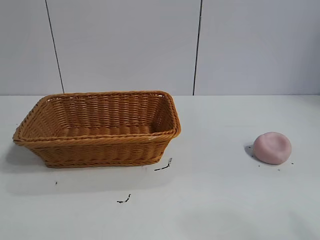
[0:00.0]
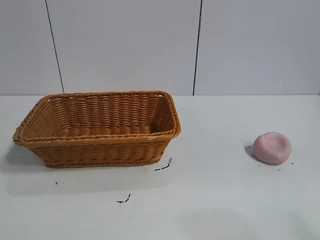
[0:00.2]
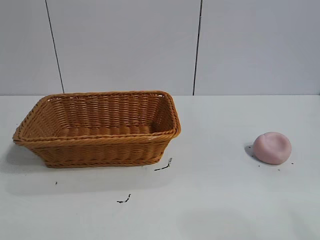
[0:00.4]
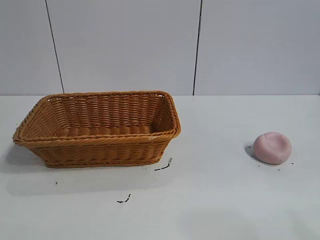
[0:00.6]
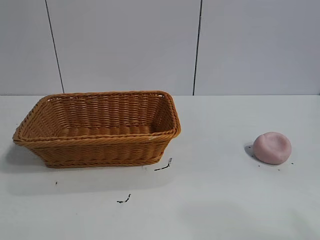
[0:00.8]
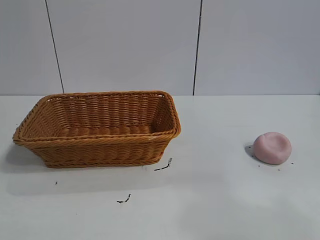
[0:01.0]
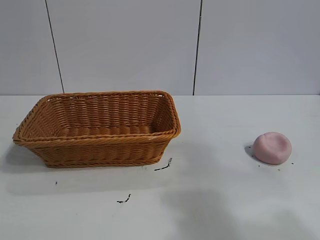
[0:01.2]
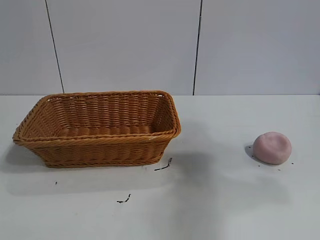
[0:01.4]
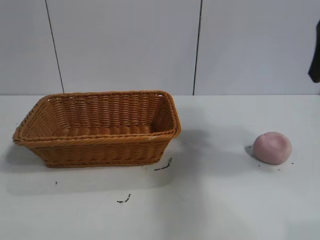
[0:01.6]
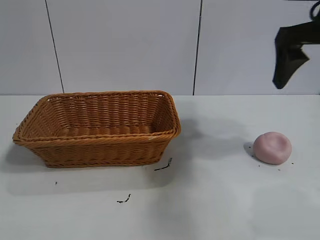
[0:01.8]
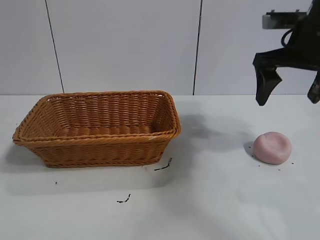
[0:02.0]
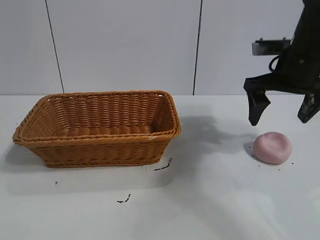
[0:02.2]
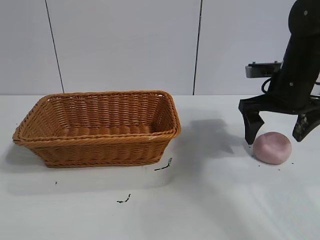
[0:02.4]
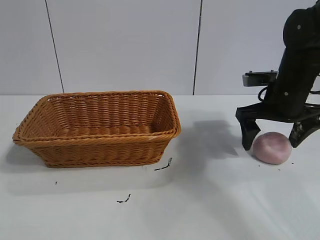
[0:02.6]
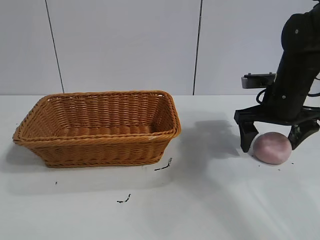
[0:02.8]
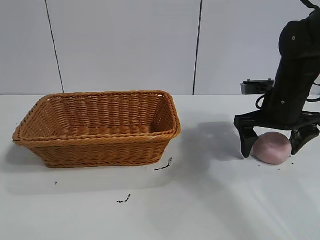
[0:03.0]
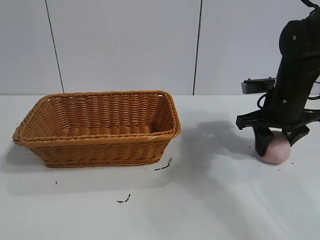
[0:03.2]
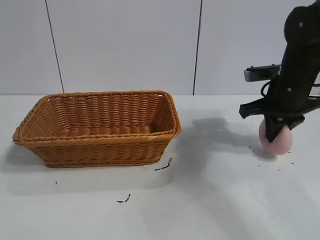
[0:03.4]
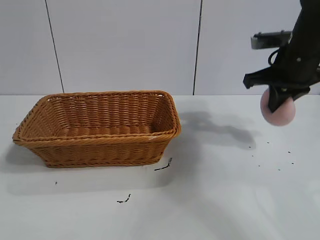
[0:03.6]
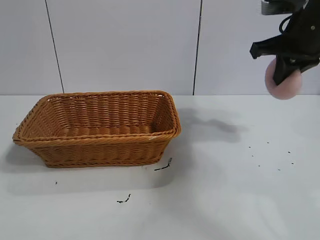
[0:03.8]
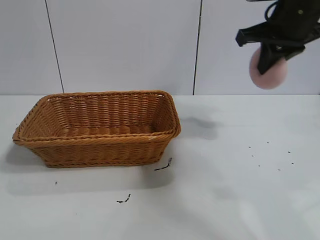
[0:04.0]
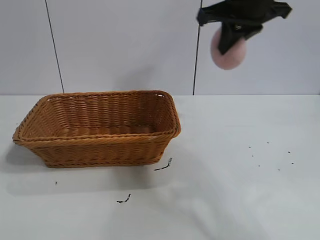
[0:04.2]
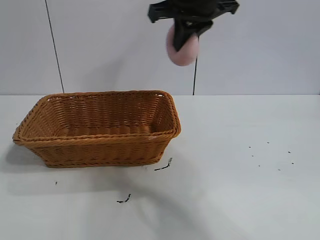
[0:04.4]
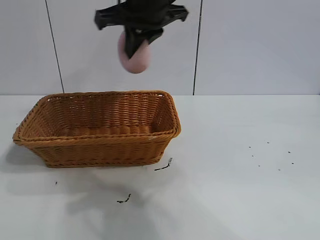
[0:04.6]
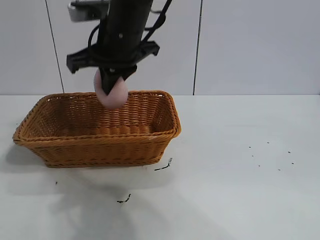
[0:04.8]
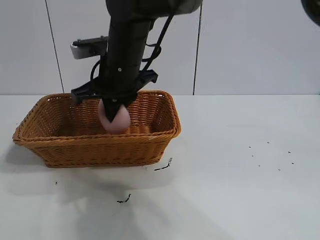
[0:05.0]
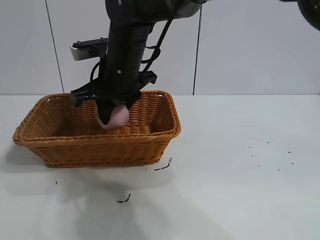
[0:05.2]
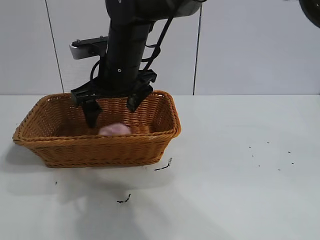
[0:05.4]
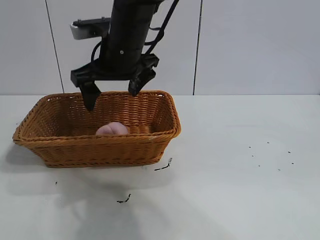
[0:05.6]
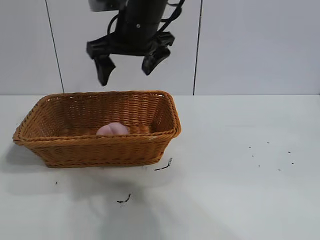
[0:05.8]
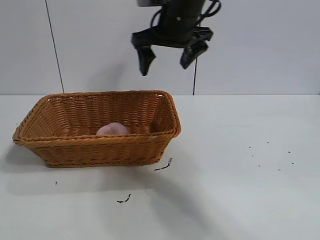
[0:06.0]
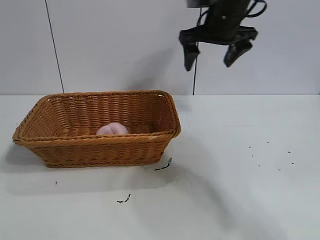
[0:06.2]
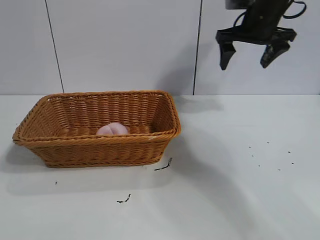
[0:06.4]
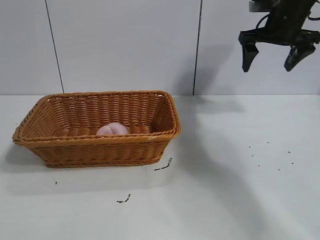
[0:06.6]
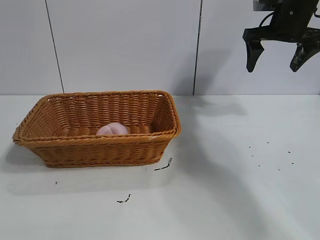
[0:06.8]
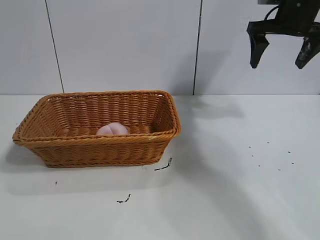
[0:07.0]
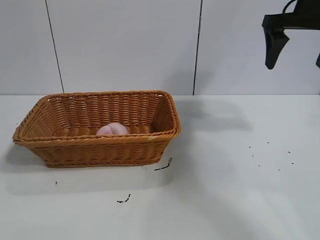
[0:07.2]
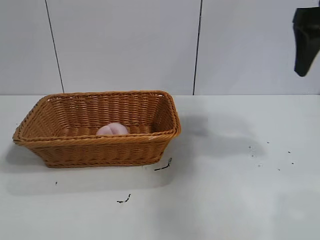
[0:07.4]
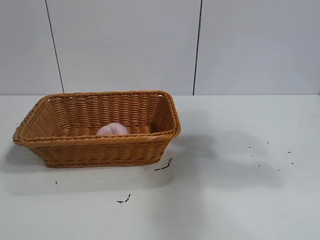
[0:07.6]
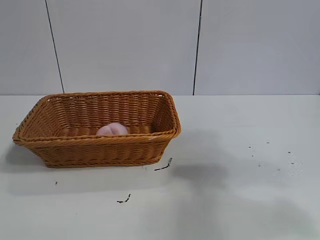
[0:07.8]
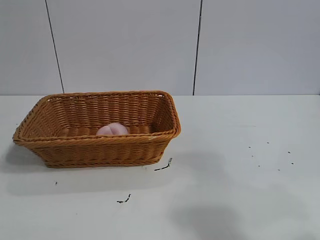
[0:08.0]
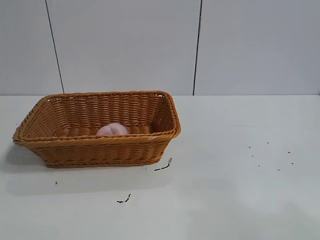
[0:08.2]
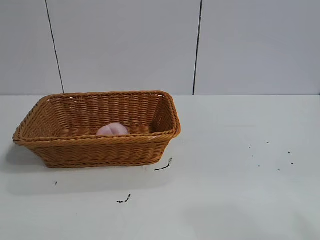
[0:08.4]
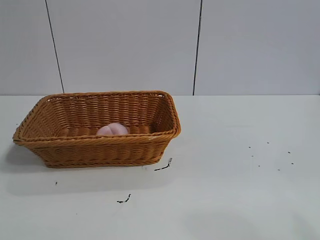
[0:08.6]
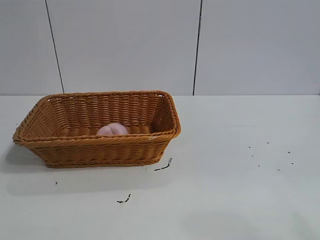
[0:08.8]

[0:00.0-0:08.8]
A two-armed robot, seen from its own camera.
Task of the whole recording: pick up the peach and put it into the basket.
Step, 0:00.8 to 0:03.2: Grasp the peach with right gripper.
Step, 0:03.4 to 0:05.4: Place the peach in the basket with right gripper.

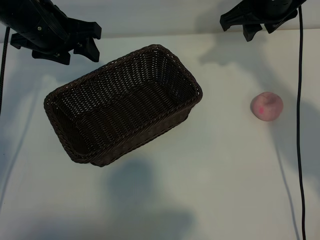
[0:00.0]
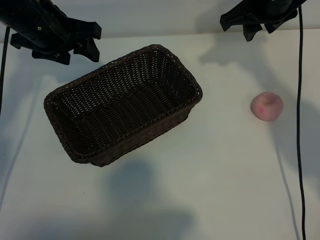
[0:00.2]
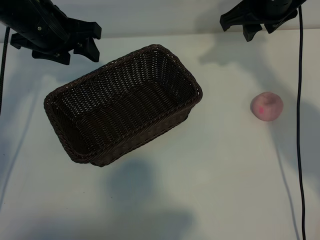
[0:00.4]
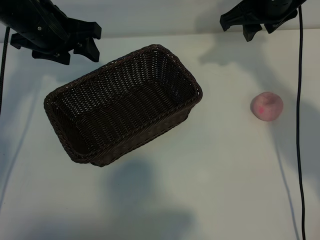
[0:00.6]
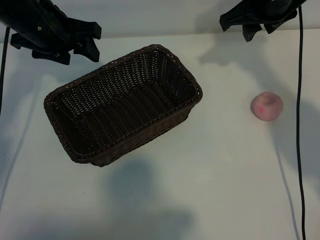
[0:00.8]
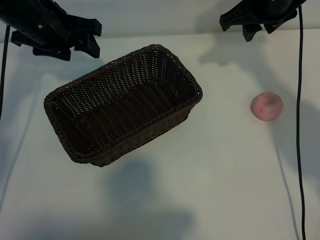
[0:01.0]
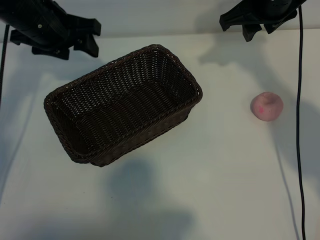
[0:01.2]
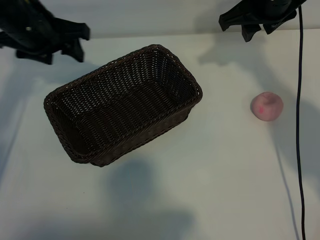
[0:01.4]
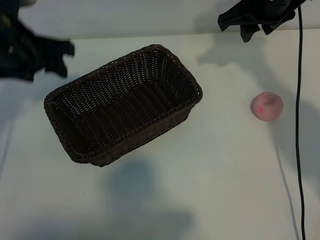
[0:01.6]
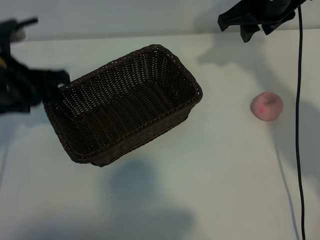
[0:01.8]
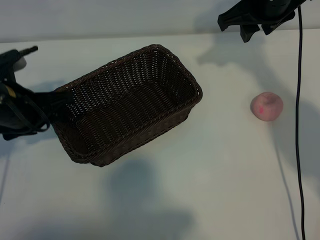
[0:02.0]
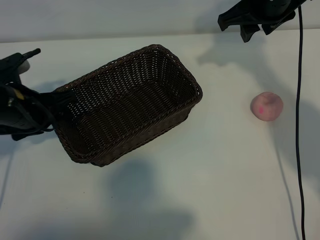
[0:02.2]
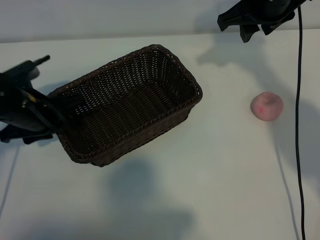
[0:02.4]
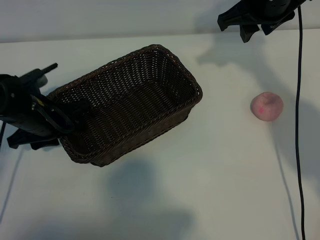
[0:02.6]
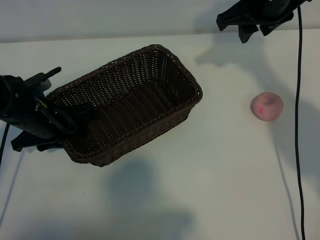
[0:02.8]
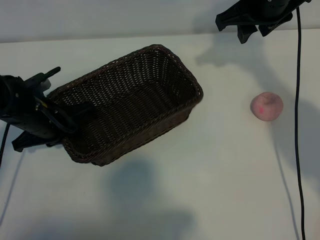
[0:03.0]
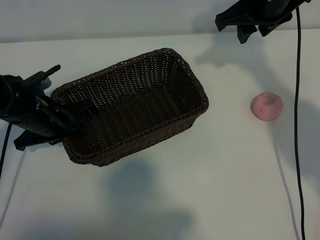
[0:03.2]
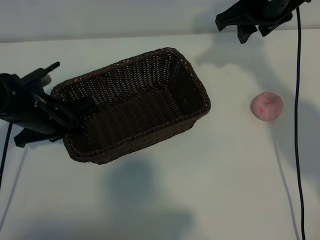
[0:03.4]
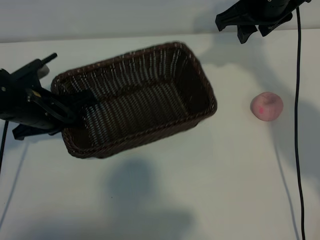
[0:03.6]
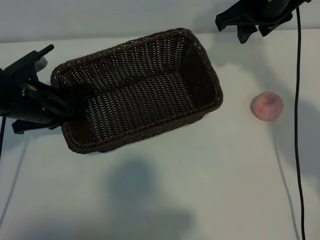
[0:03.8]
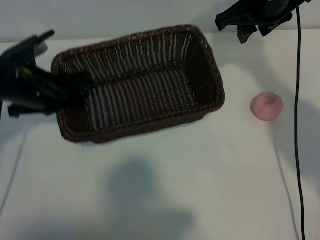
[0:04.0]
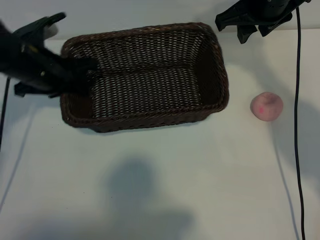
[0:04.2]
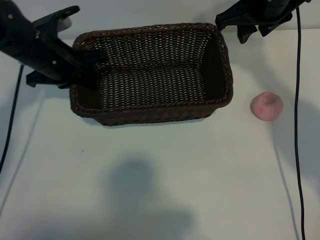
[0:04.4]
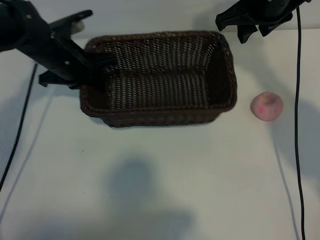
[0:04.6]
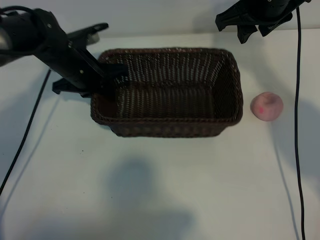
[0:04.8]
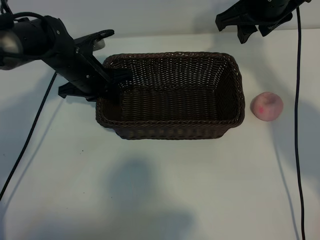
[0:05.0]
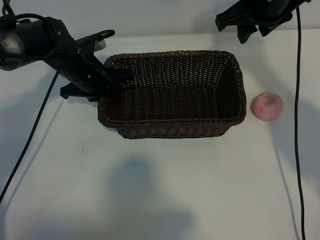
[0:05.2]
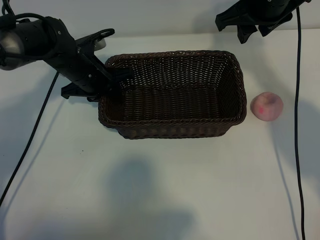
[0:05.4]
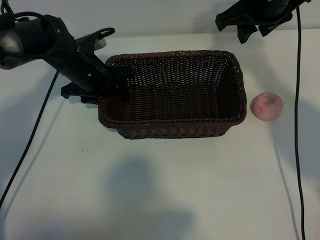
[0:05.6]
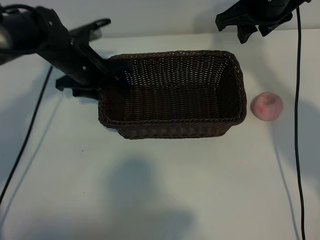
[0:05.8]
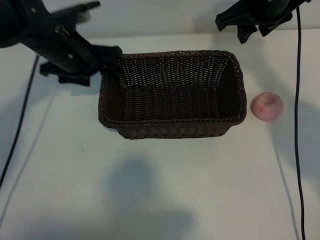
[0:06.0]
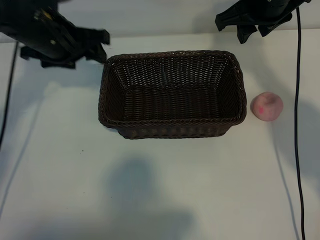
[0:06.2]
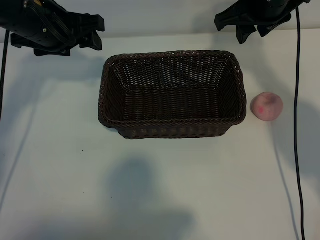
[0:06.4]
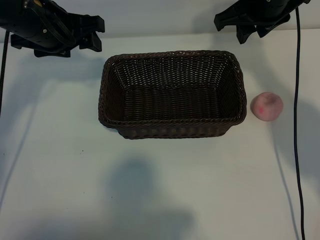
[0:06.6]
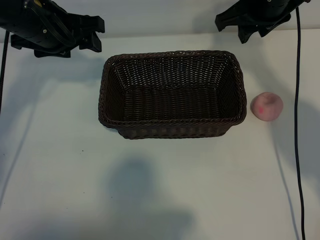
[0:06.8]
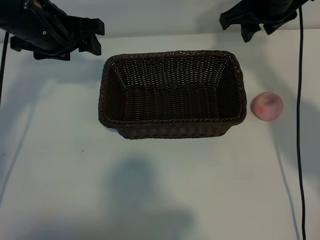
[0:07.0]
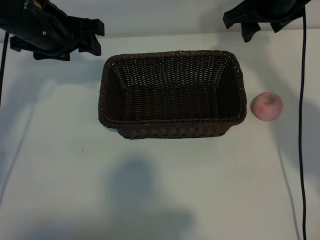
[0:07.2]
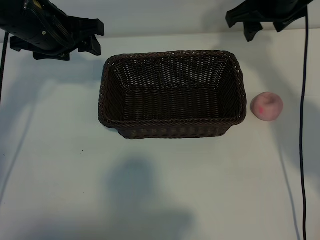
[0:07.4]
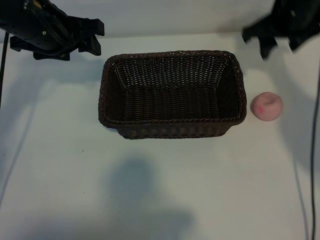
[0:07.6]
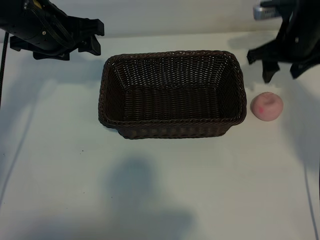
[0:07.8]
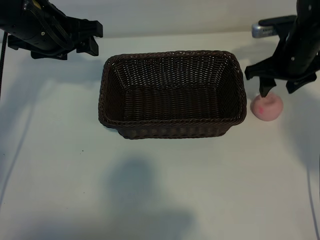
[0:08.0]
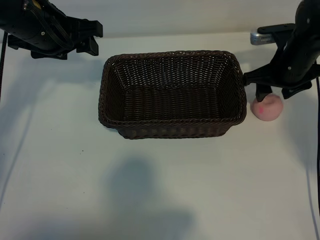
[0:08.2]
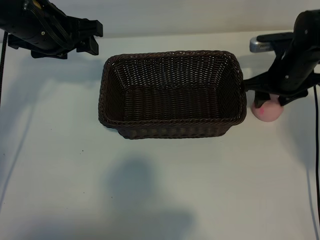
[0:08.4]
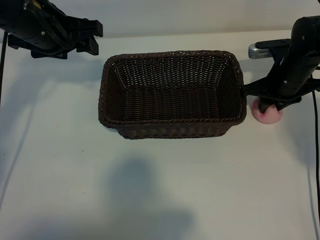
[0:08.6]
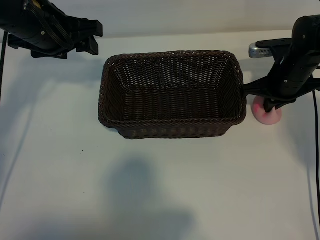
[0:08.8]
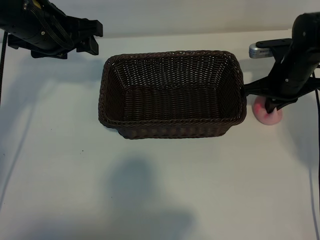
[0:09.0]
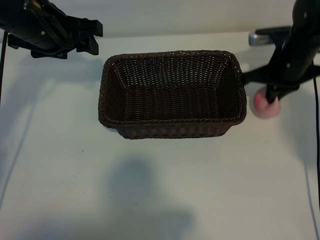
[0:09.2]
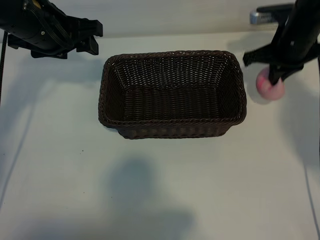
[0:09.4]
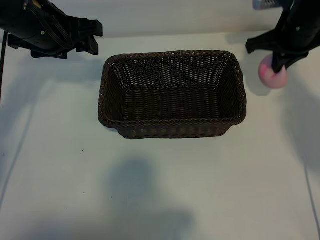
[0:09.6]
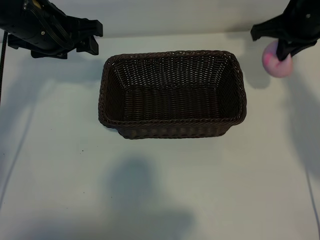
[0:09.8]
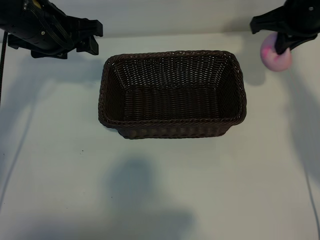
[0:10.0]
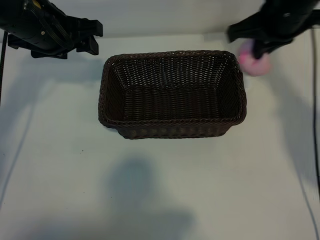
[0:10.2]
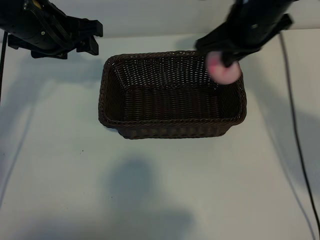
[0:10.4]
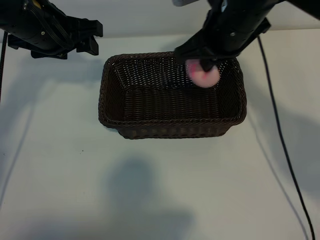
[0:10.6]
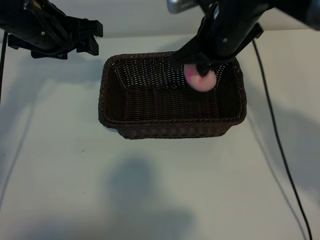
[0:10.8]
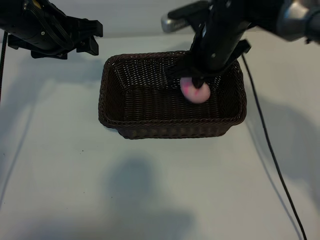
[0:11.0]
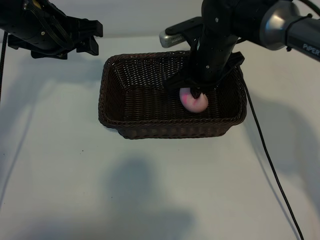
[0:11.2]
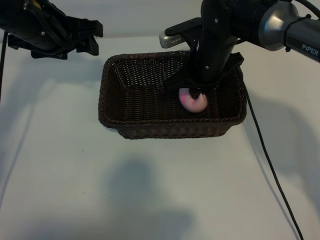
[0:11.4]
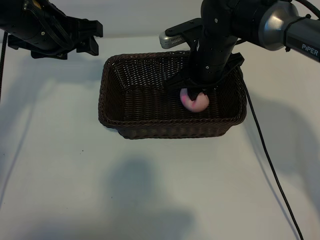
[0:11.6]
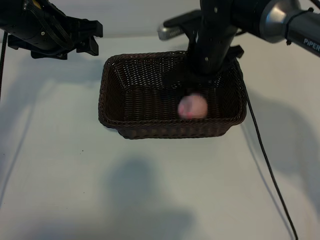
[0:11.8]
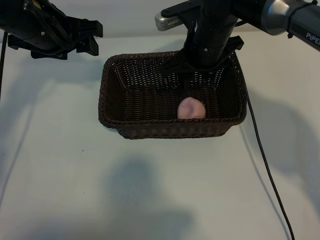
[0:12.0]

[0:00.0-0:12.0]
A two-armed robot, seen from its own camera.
Task of the whole recording: pick up the peach and put it into the basket.
Step, 0:01.0 to 0:03.0: Grasp the basket with left gripper.
Step, 0:03.2 to 0:05.4: Place the basket in the center of view with left gripper.
Step, 0:05.6 to 0:08.8: Grasp the peach with right gripper.
Step, 0:09.0 to 0:11.8: Place the peach in the basket with right gripper.

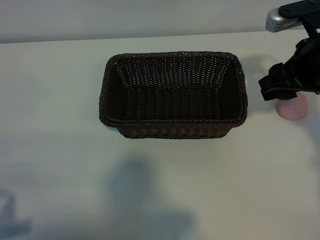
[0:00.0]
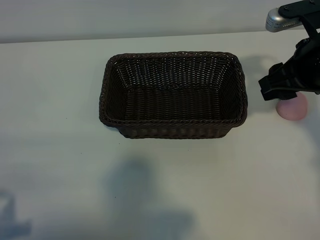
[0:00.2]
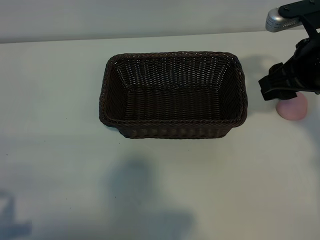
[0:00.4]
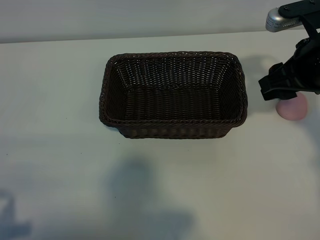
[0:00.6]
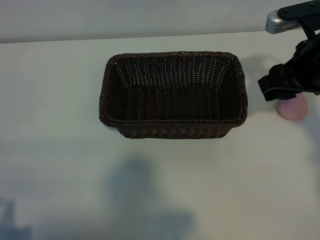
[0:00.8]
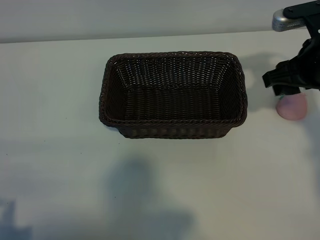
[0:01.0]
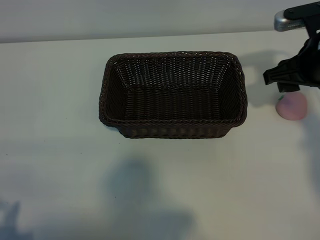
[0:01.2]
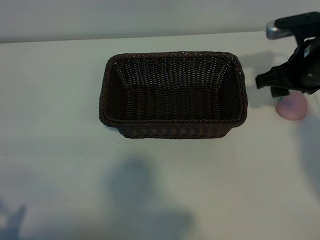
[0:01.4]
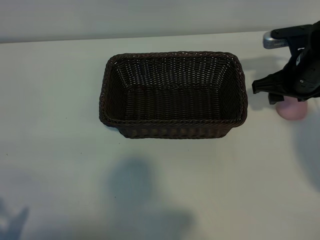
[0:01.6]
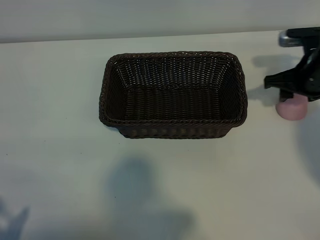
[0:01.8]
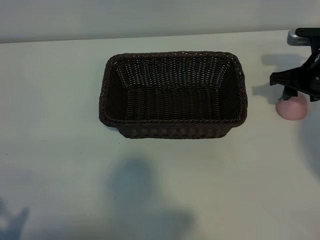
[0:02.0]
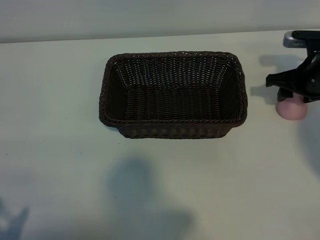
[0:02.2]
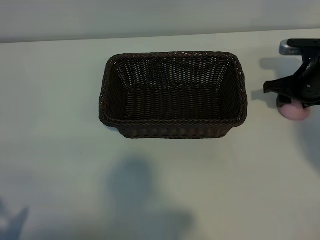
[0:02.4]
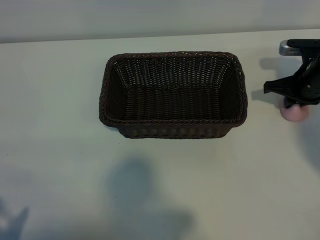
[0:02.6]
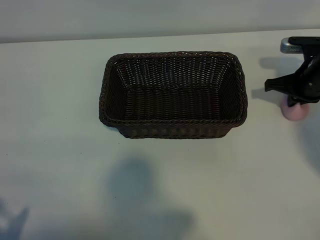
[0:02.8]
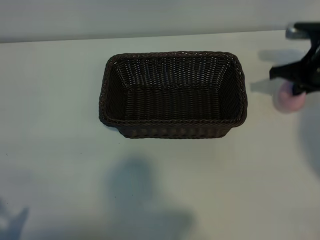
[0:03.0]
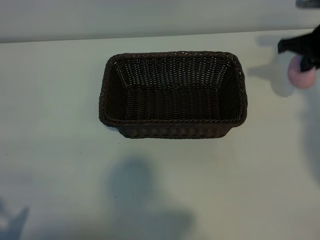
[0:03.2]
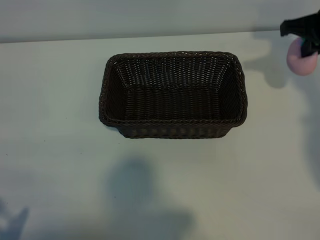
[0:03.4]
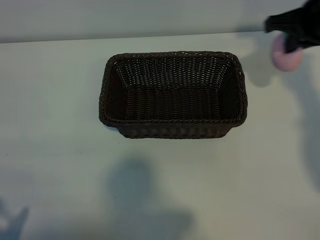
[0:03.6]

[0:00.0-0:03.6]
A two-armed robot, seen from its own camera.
Task of the whole recording: pick up the peach and put it into the basket.
Step, 0:00.0 to 0:02.6: Grasp the peach with right gripper.
